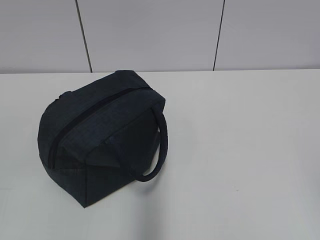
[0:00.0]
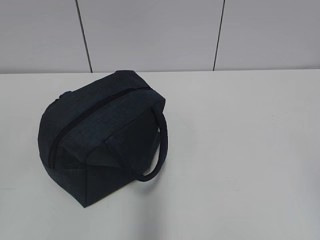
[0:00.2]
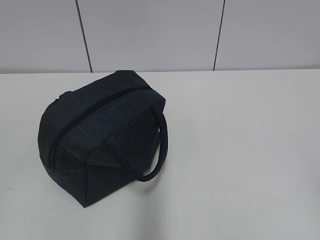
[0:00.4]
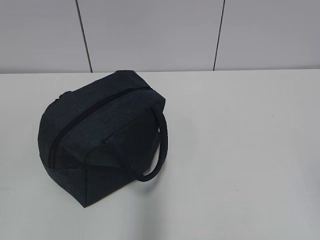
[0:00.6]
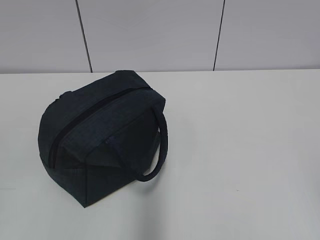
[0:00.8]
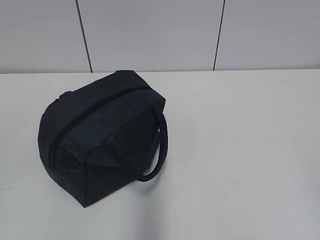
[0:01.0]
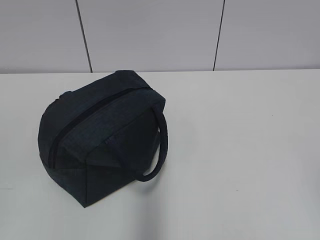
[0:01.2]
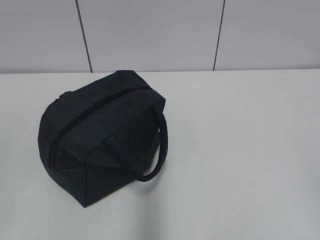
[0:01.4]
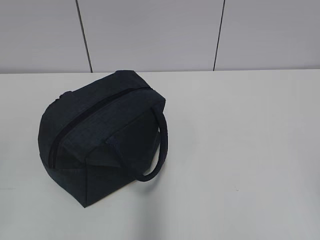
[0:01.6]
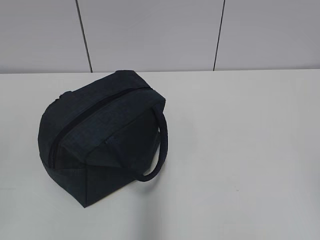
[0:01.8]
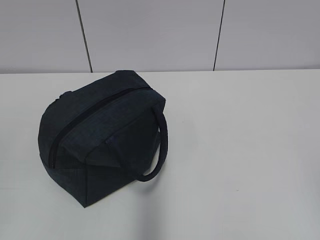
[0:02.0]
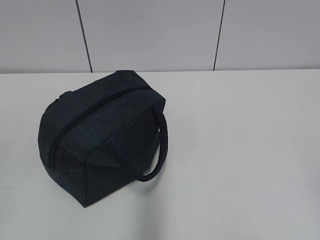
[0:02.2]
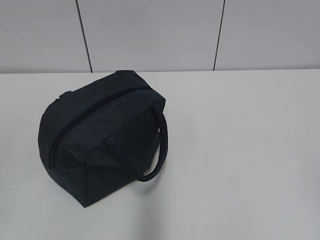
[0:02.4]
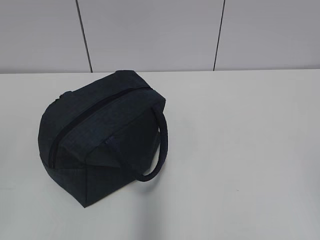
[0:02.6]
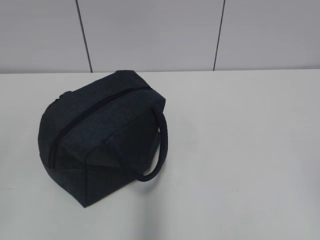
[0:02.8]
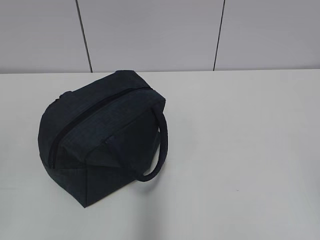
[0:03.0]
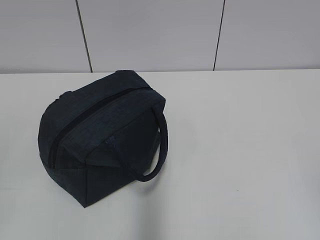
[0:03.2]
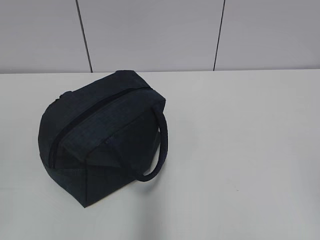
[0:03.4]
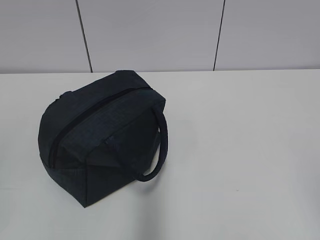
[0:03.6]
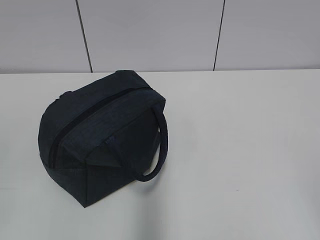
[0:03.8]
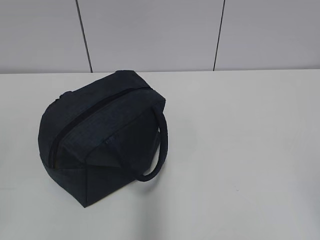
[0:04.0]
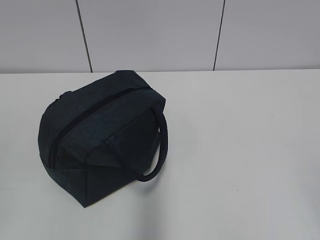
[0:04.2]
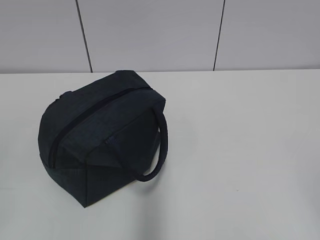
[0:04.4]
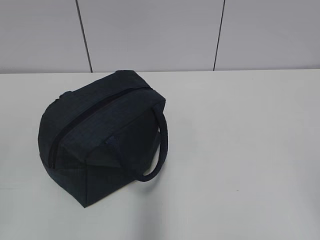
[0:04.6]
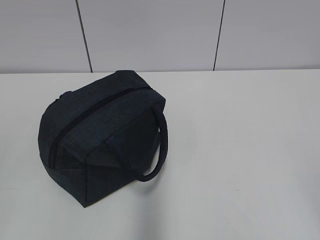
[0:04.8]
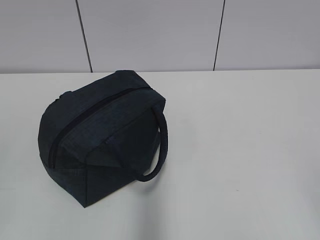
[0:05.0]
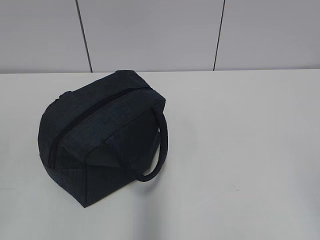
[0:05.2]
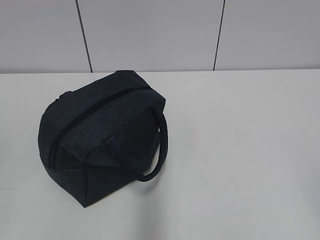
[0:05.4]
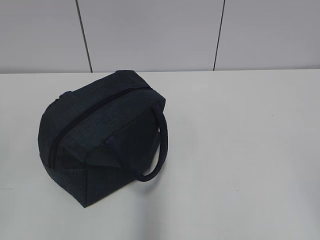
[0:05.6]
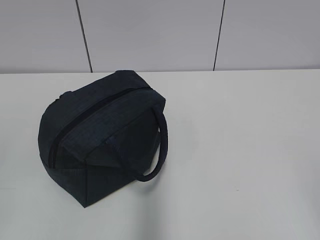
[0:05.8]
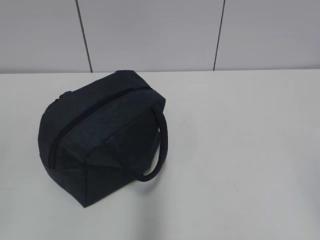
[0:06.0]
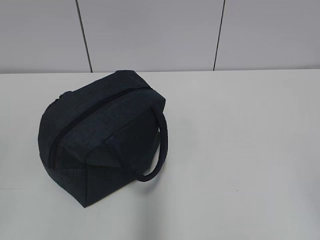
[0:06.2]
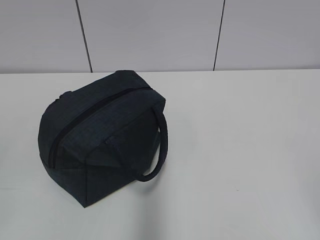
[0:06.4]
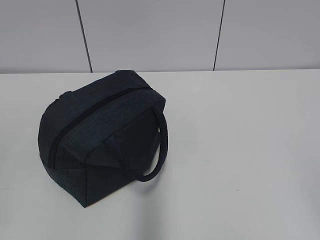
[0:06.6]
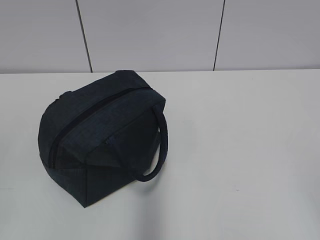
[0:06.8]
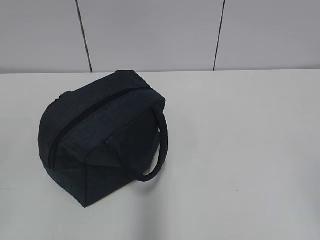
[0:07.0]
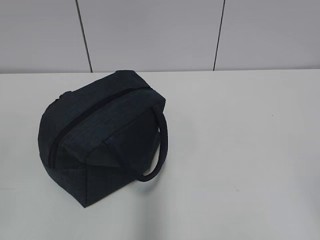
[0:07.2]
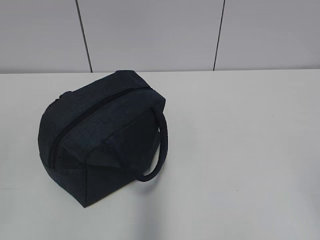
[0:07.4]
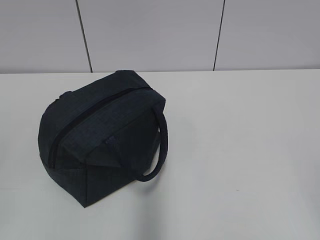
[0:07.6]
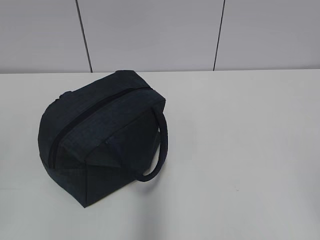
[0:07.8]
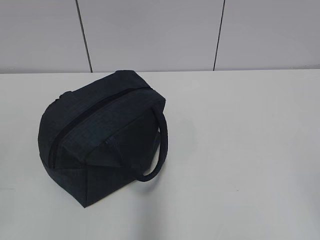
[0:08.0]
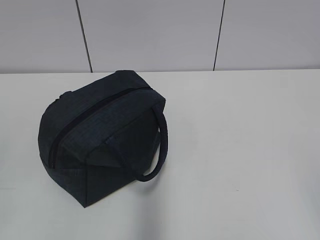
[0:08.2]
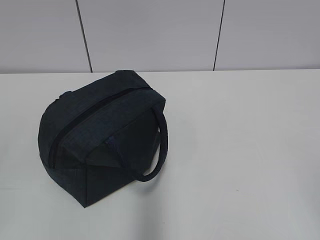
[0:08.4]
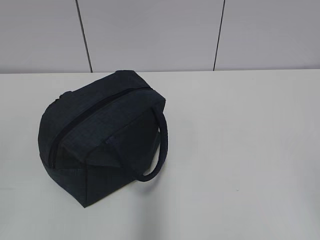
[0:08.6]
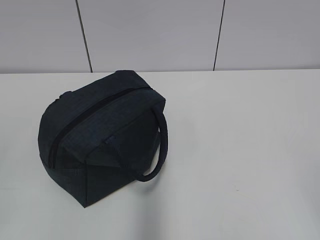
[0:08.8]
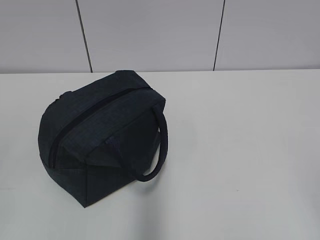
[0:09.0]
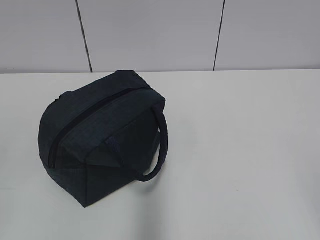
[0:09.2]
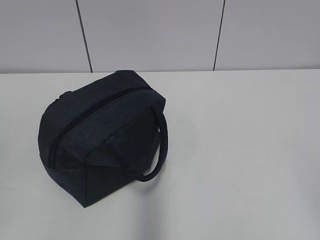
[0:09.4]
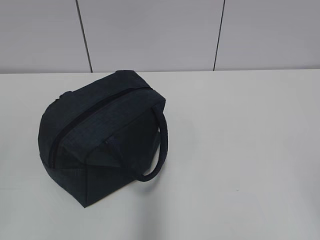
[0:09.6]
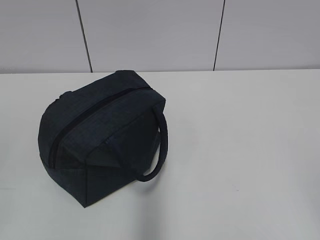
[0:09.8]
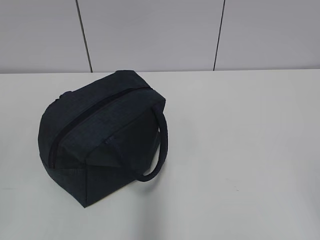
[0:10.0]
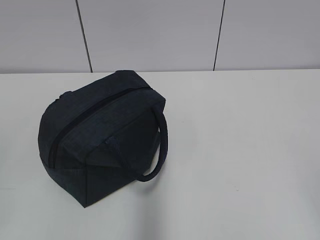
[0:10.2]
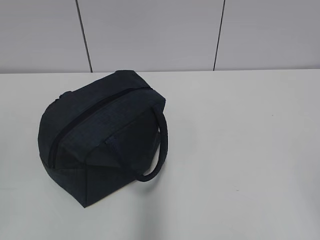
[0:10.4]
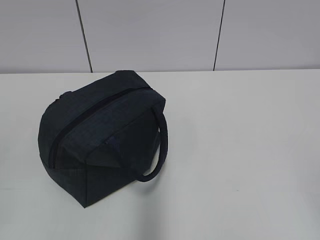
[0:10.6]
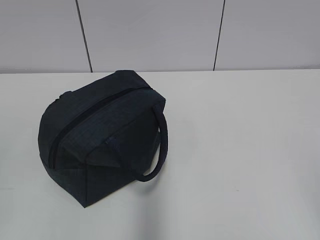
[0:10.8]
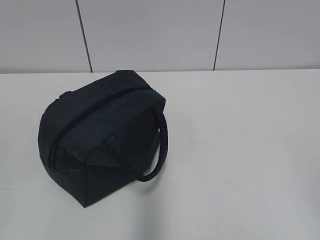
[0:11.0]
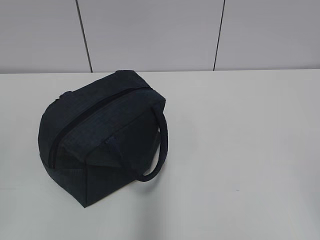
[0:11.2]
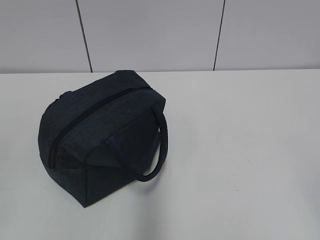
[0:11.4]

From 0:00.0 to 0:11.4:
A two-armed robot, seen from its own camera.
From 0:01.4 to 0:02.8: Neither gripper changes place.
From 0:04.2 to 0:11.4: The two grippers keep their place.
